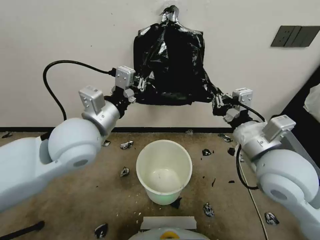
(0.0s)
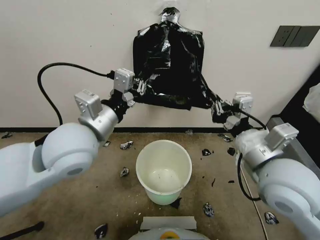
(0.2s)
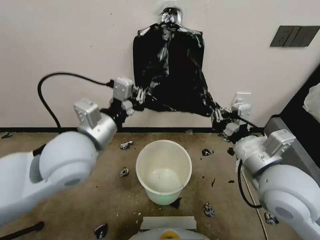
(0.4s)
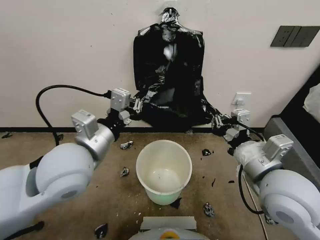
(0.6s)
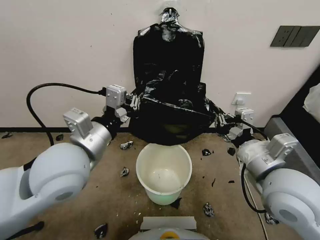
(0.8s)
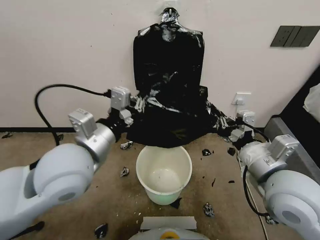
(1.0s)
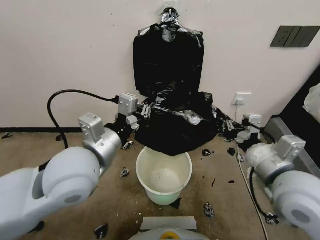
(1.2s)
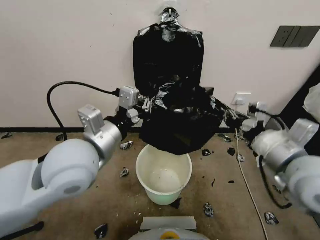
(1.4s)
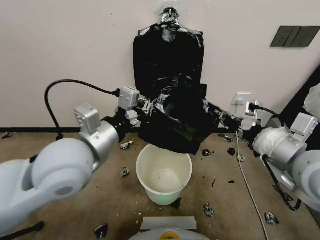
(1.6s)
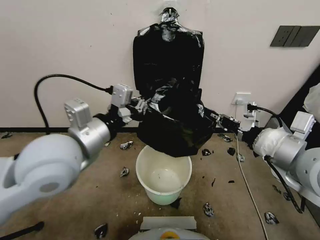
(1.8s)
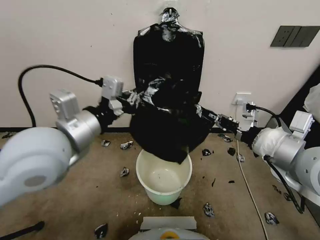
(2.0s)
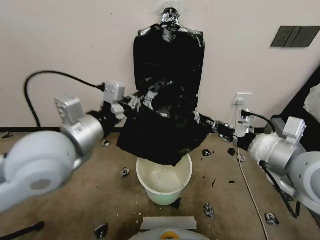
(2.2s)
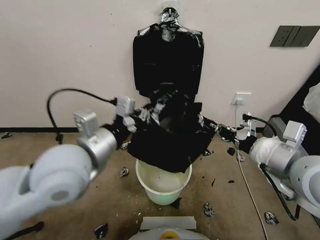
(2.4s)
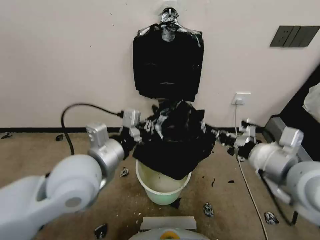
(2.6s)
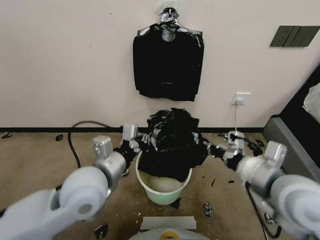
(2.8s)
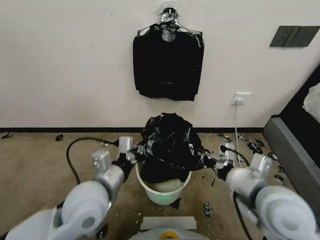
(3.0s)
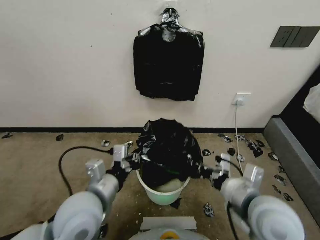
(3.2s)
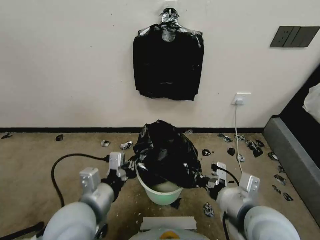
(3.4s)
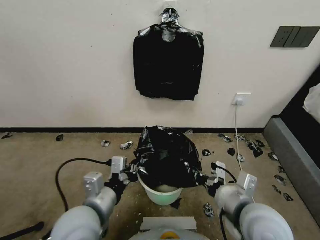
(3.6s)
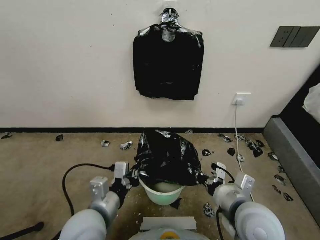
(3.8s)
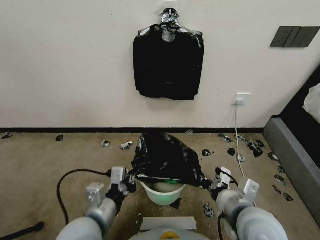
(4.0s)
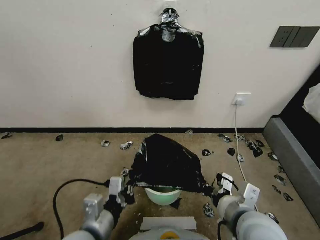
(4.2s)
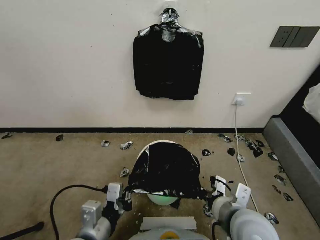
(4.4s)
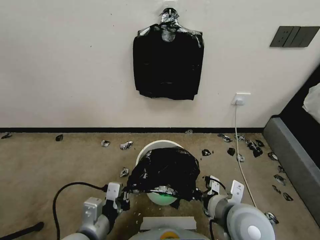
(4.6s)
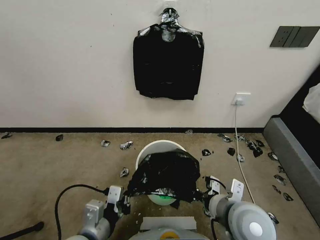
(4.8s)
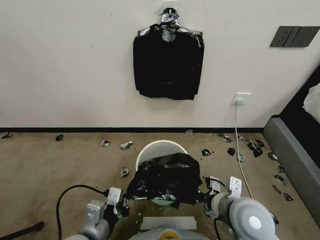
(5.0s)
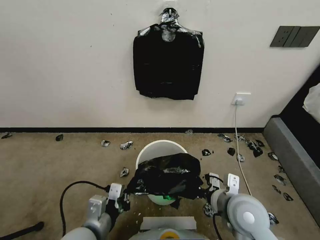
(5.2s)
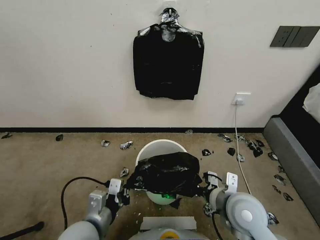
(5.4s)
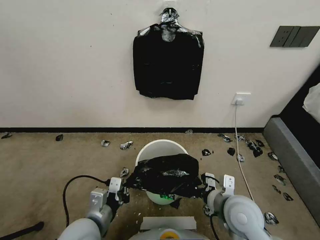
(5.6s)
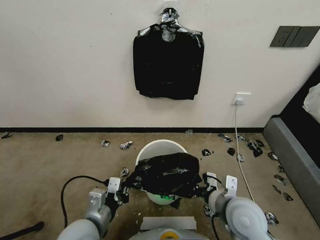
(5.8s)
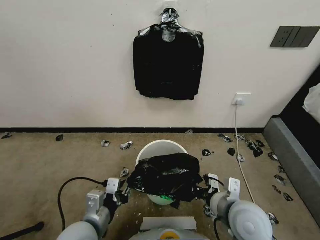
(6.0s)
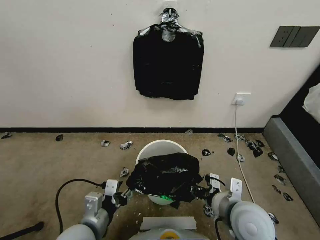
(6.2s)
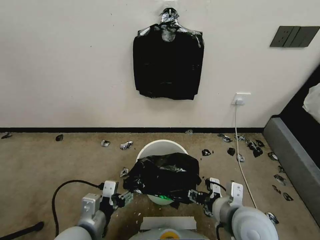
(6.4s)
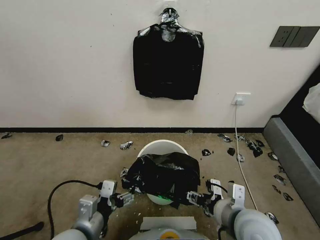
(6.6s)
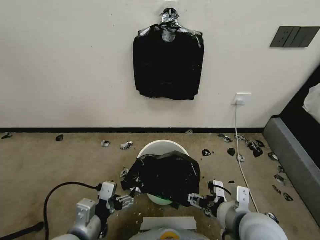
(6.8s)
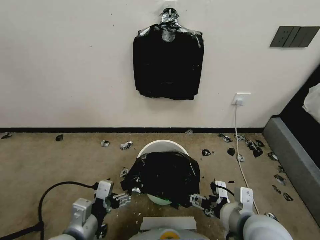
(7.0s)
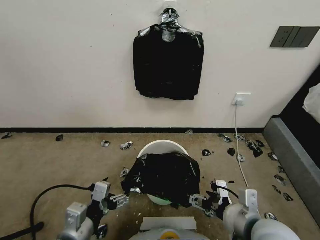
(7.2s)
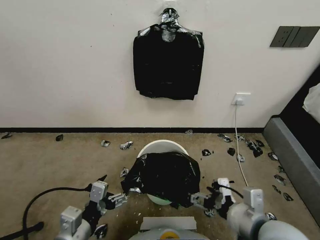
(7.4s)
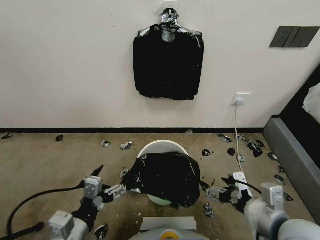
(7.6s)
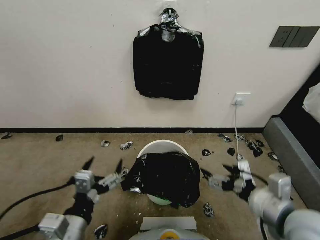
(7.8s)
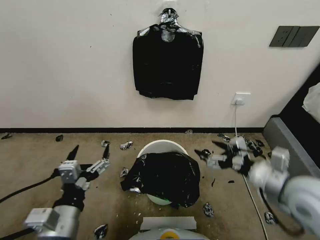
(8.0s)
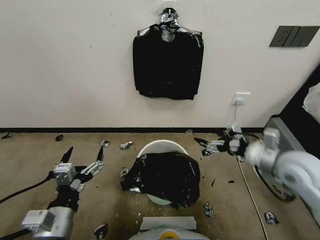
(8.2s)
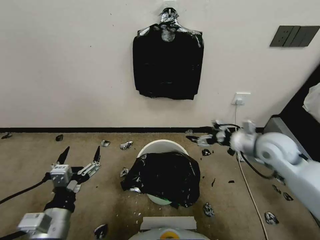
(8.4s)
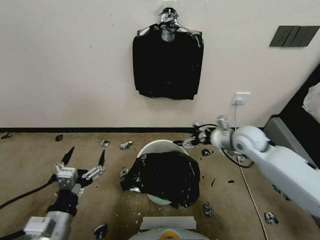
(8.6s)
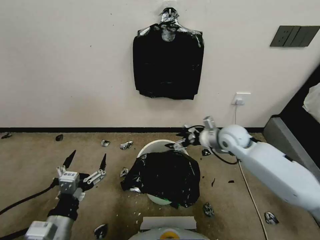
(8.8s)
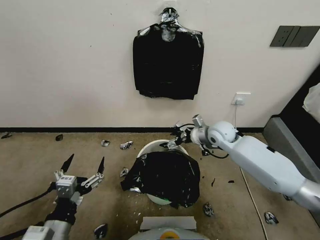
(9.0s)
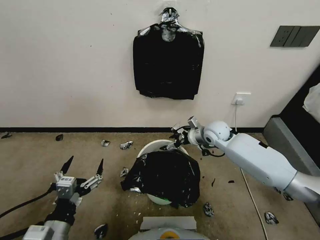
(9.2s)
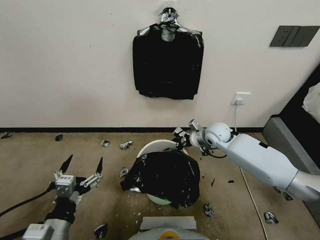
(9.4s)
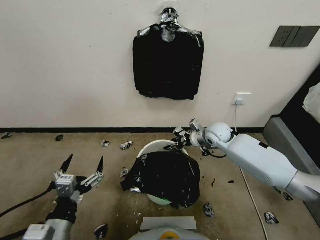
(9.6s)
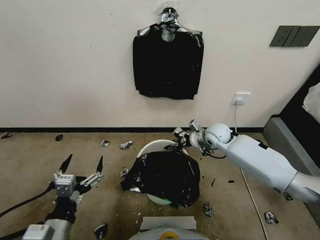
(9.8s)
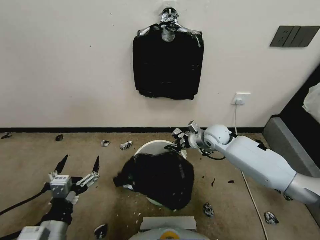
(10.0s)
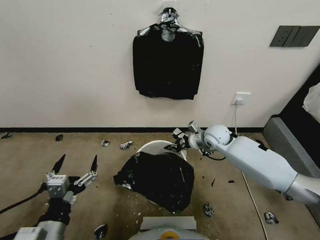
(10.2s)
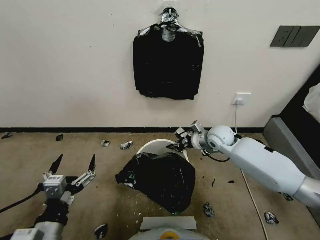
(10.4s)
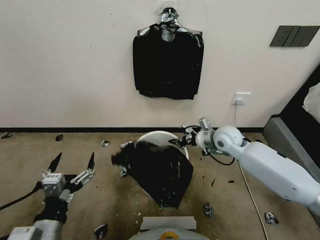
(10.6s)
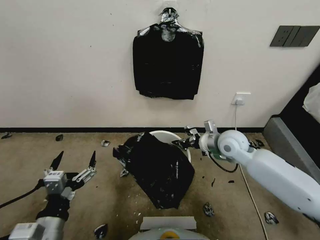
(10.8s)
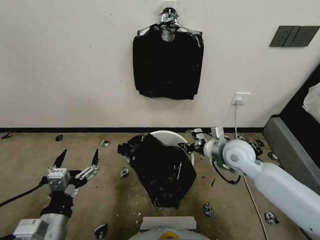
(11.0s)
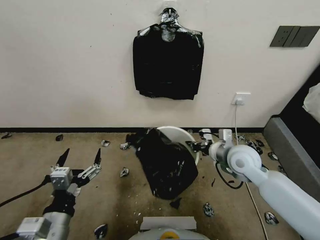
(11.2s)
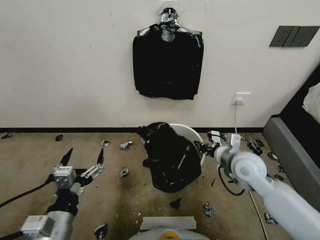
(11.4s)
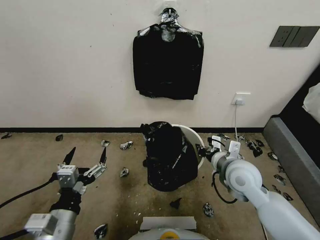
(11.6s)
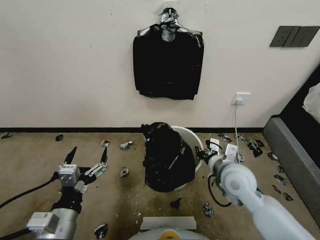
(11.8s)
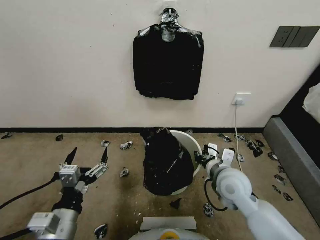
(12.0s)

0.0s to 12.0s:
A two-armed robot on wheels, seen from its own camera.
Task of the whole recording: Place a trash bag onto the trash bin.
0.0s to 1.6s: The right gripper is displaced to the right by some 5 cm.
1.6s to 3.0s: Both grippers move downward, some 10 cm.
3.0s to 4.4s: The right gripper travels downward and to the left by about 10 cm. Meanwhile the left gripper goes approximately 15 cm backward and downward.
4.4s to 6.0s: The left gripper changes place by roughly 5 cm.
6.0s to 7.6s: The right gripper travels upward, to the right and backward by roughly 10 cm, and opens. The left gripper goes some 5 cm backward, and opens its fingers.
7.6s to 9.0s: The right gripper shifts approximately 35 cm forward.
9.0s to 10.4s: The right gripper closes.
10.4s to 12.0s: The right gripper moves backward, approximately 20 cm.

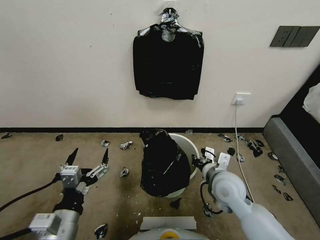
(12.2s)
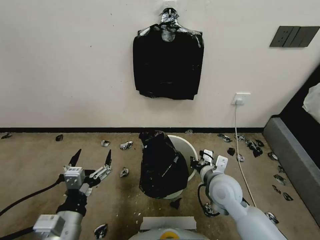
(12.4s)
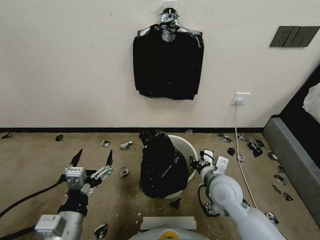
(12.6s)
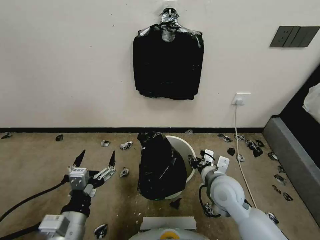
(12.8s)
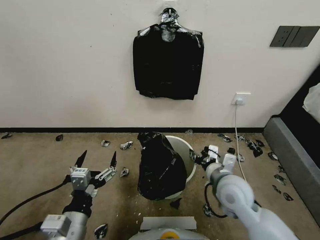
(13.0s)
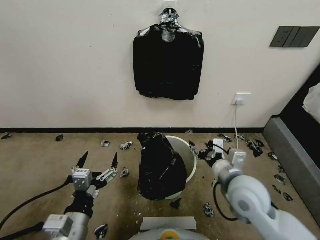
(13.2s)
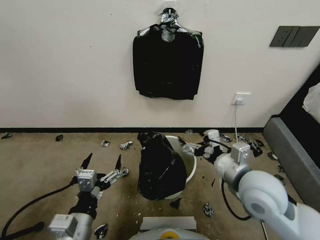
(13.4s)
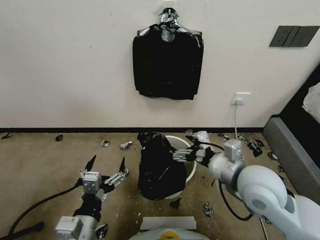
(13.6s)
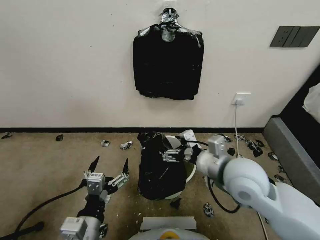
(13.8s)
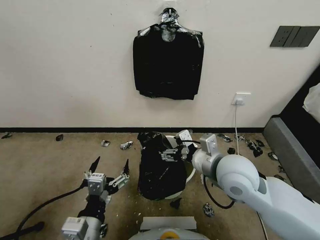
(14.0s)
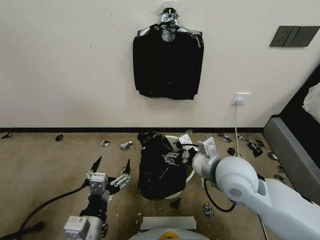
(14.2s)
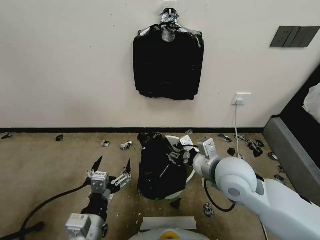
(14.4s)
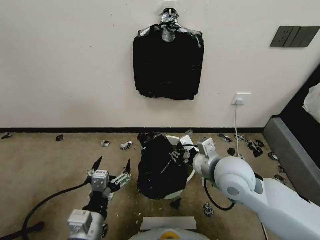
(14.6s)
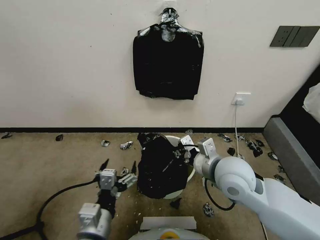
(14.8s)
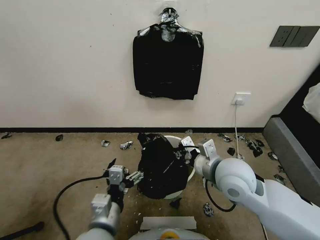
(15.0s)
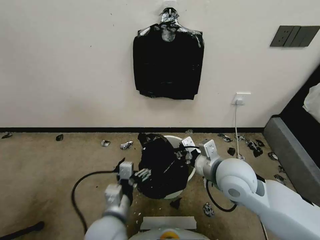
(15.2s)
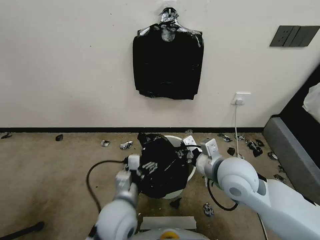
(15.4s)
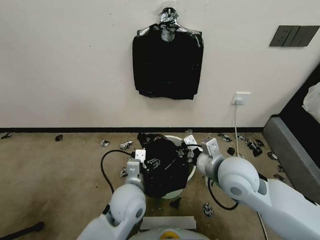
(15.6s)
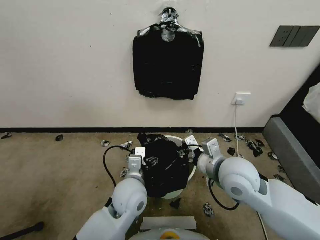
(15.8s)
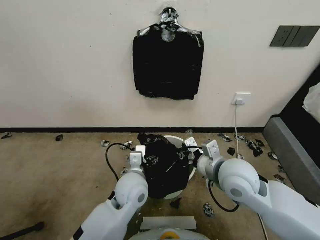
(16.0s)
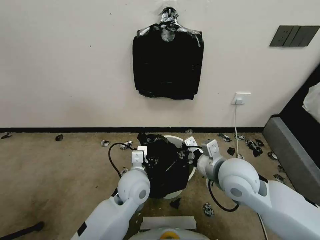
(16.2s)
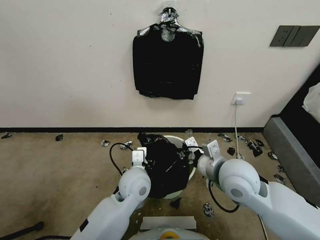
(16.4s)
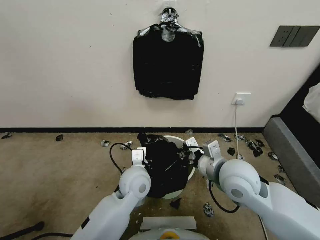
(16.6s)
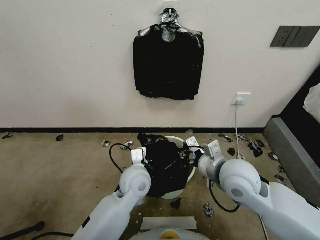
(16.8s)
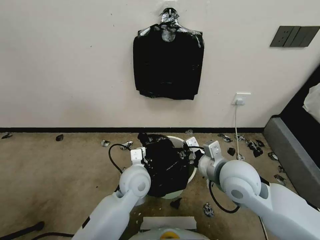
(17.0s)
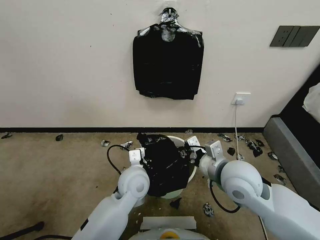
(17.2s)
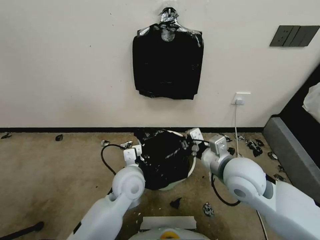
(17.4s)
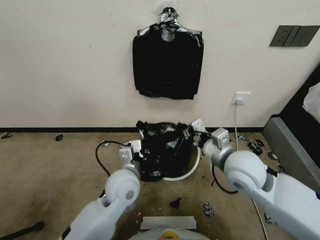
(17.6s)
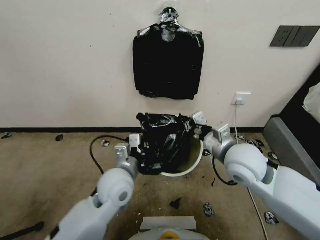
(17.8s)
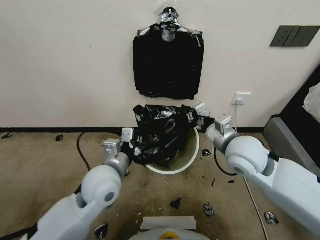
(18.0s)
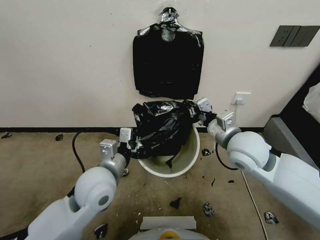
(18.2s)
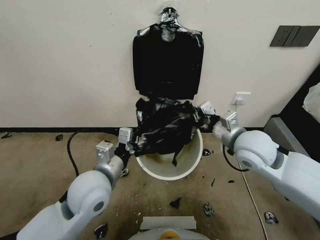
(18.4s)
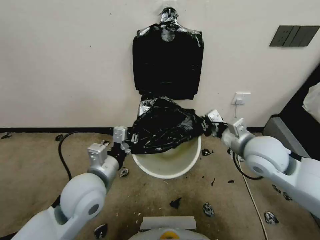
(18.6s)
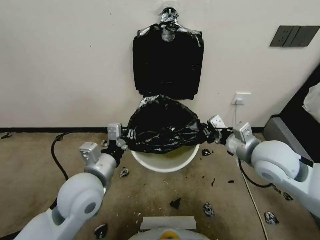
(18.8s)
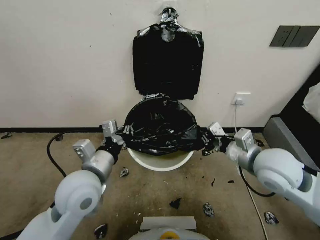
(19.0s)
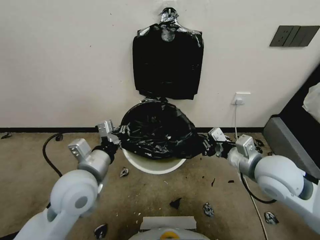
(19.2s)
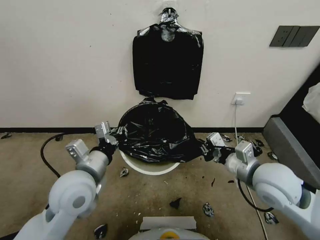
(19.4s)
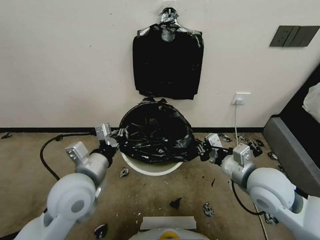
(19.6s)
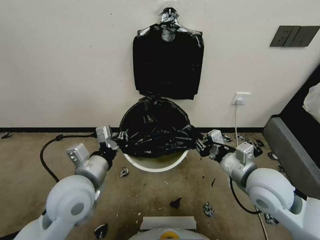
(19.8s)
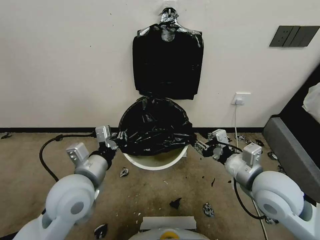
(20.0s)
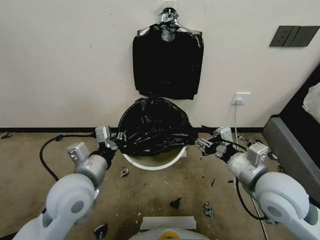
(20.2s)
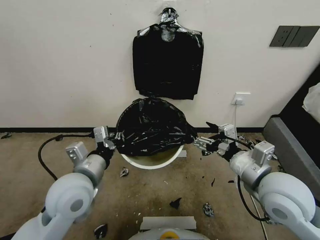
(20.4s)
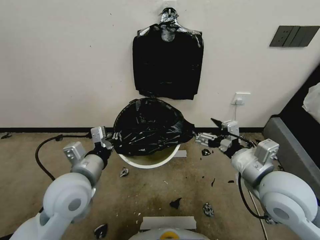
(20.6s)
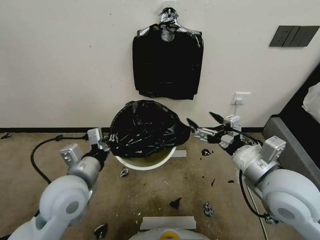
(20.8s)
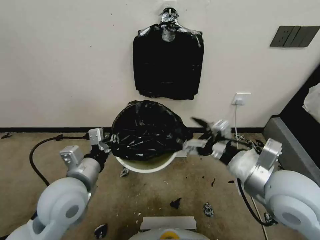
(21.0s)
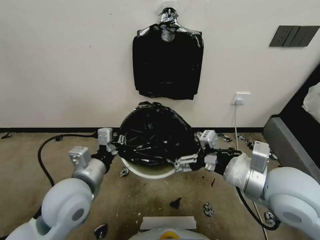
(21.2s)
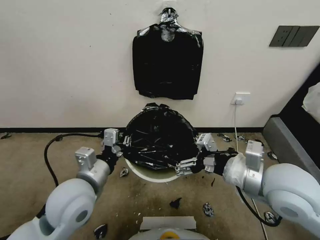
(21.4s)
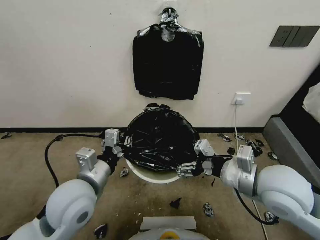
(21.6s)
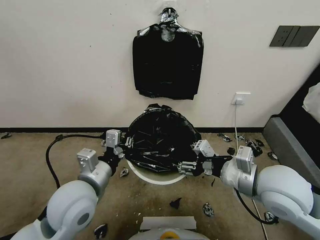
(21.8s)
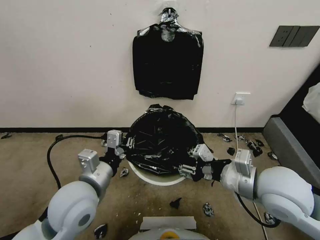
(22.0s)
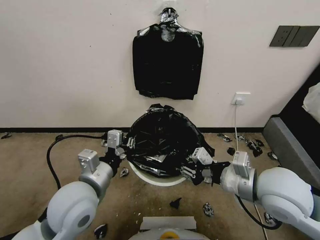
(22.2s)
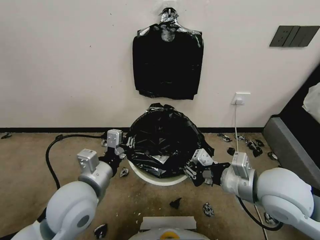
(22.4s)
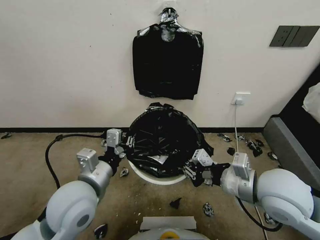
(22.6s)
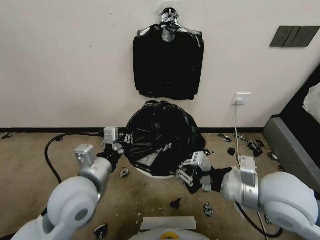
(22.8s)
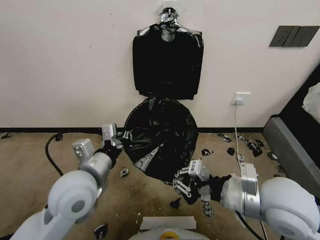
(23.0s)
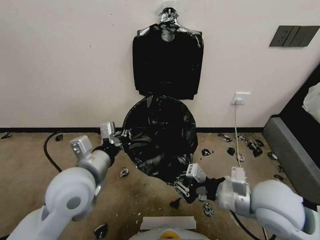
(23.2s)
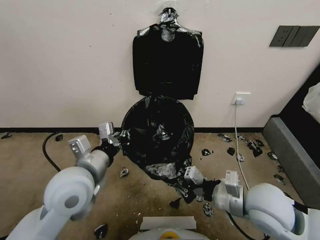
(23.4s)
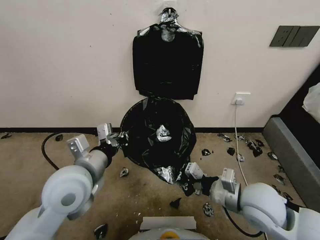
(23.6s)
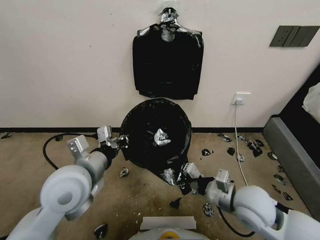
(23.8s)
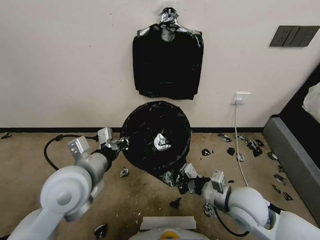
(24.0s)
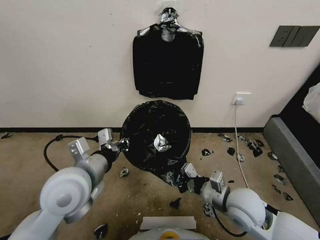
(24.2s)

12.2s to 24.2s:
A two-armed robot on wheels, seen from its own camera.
Task of the whole recording: Place a trash bag onto the trash bin.
12.2s to 13.8s: The right gripper travels upward by about 15 cm, and opens its fingers.
13.8s to 15.2s: The left gripper heads to the right and forward, covering about 10 cm; the right gripper closes its fingers.
15.2s to 16.6s: The left gripper moves forward, about 15 cm, and closes its fingers.
16.6s to 18.2s: The right gripper is displaced forward by roughly 5 cm; the left gripper moves upward and to the left, some 10 cm.
18.2s to 19.8s: The right gripper heads backward and downward, covering about 10 cm; the left gripper moves some 5 cm.
19.8s to 21.2s: The right gripper shifts approximately 5 cm upward, and opens up.
21.2s to 22.6s: The right gripper closes its fingers.
22.6s to 24.2s: The right gripper goes some 15 cm downward.
